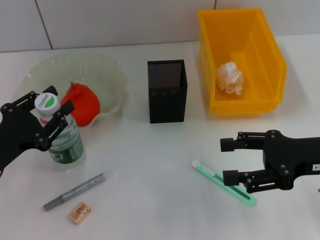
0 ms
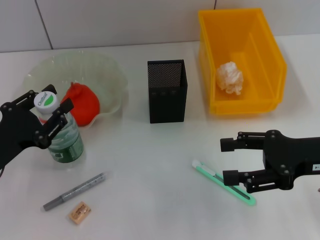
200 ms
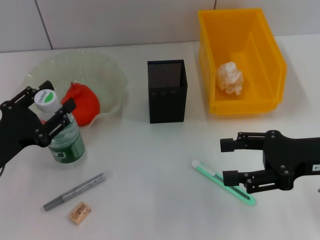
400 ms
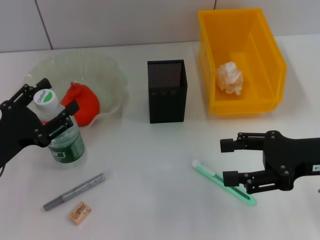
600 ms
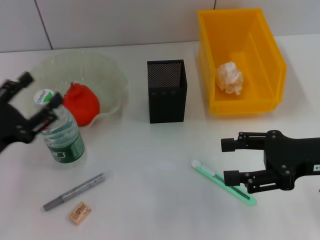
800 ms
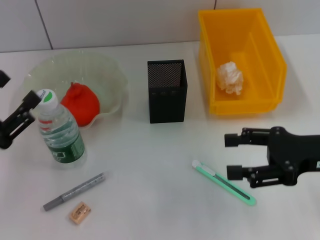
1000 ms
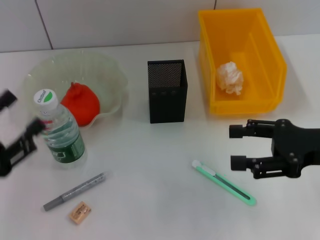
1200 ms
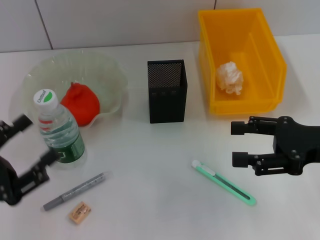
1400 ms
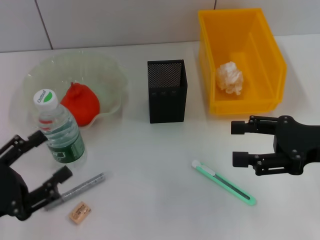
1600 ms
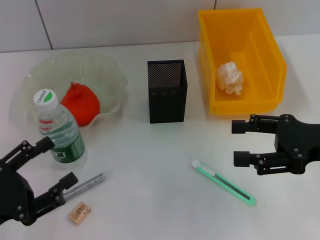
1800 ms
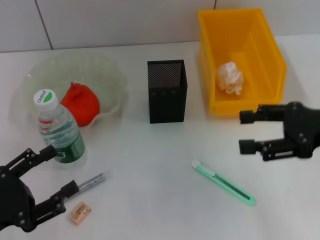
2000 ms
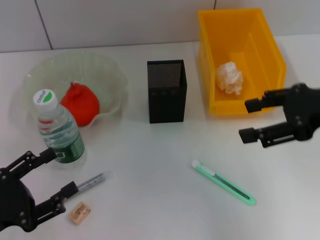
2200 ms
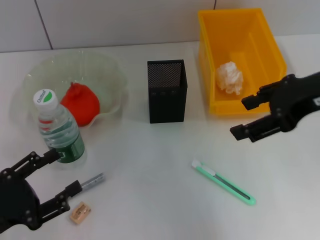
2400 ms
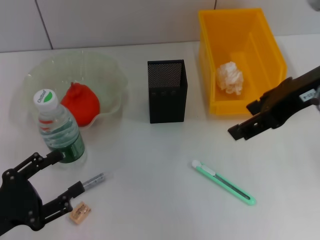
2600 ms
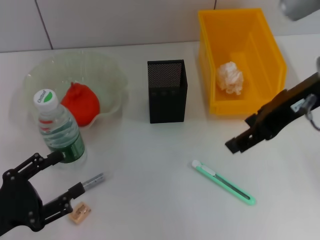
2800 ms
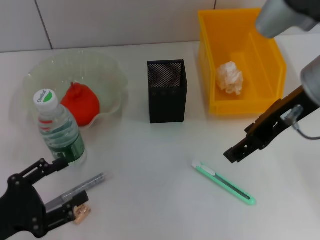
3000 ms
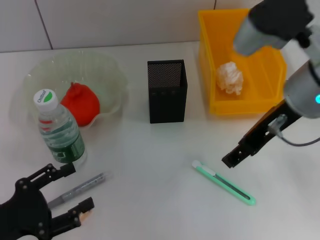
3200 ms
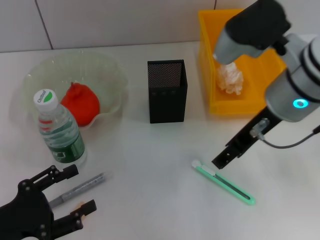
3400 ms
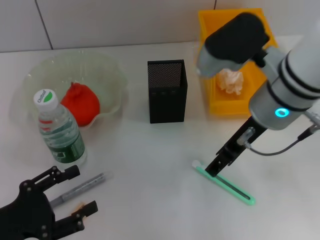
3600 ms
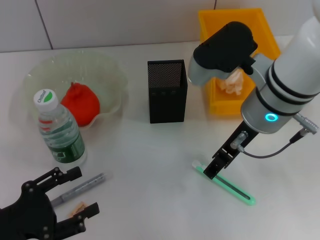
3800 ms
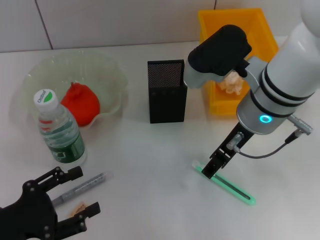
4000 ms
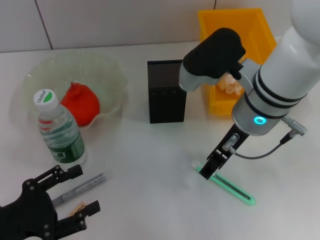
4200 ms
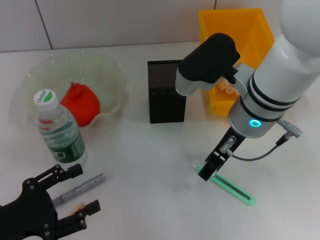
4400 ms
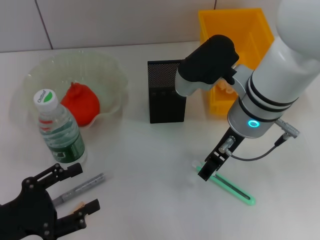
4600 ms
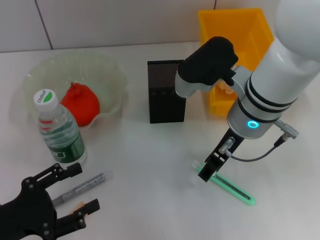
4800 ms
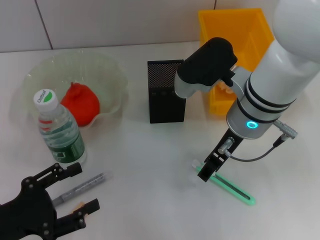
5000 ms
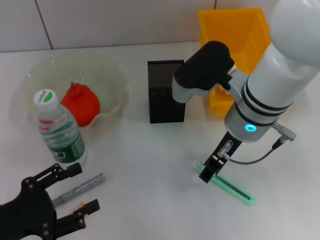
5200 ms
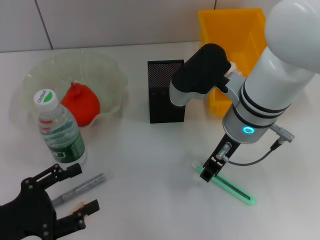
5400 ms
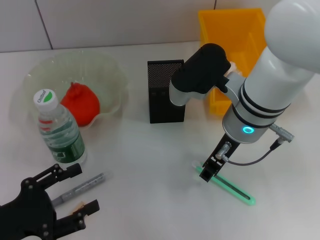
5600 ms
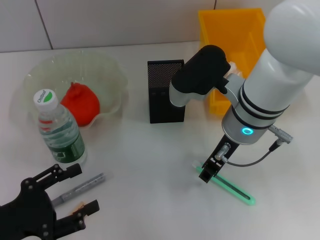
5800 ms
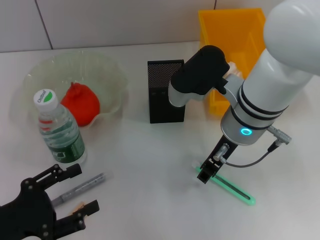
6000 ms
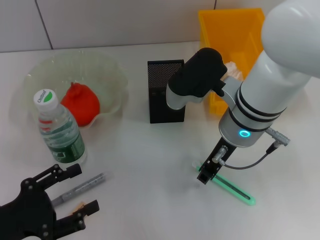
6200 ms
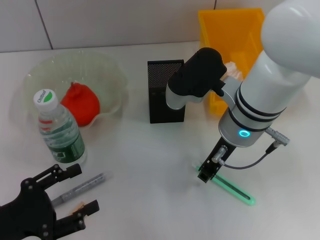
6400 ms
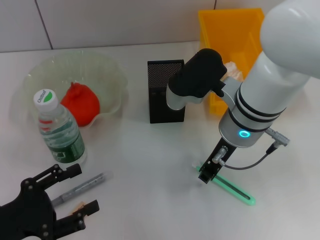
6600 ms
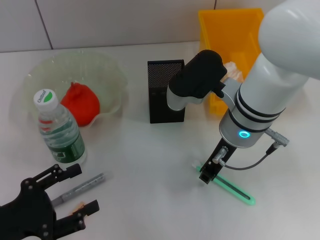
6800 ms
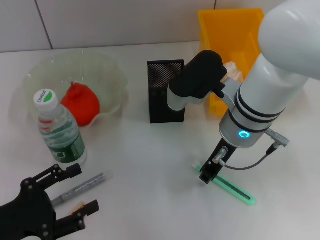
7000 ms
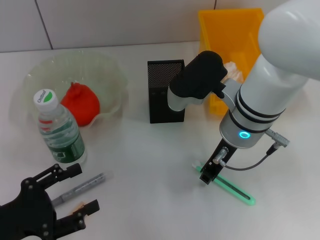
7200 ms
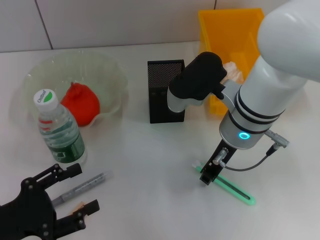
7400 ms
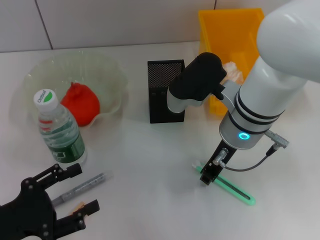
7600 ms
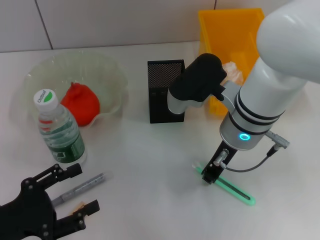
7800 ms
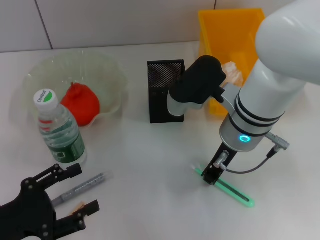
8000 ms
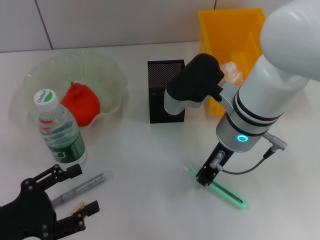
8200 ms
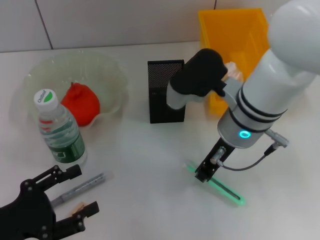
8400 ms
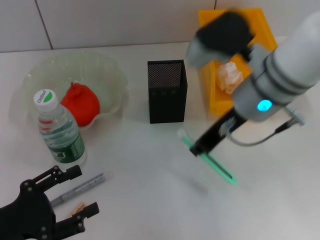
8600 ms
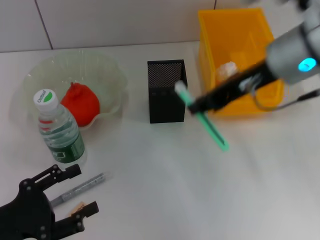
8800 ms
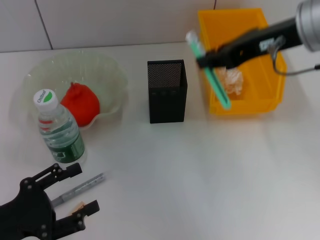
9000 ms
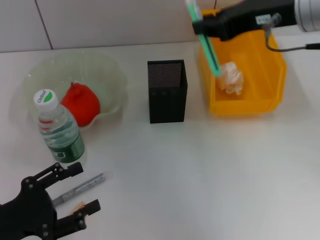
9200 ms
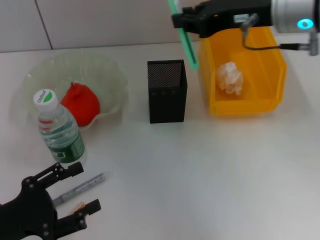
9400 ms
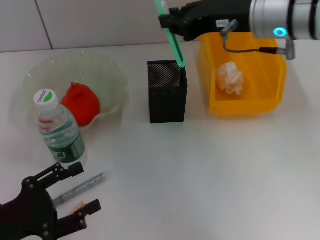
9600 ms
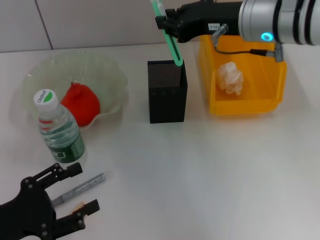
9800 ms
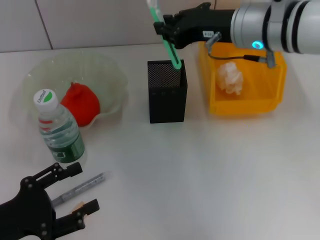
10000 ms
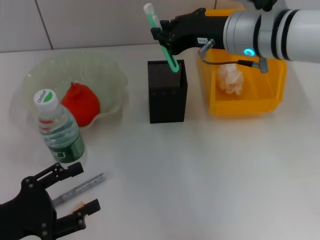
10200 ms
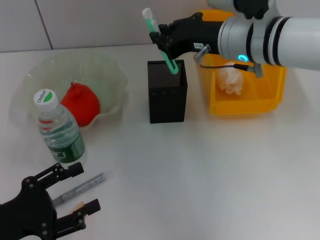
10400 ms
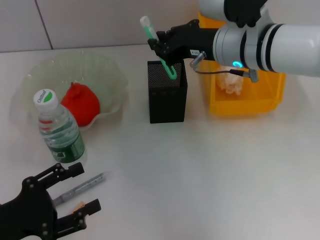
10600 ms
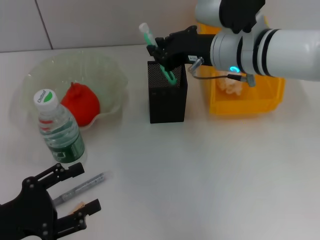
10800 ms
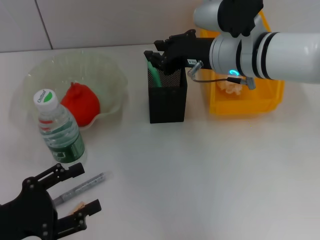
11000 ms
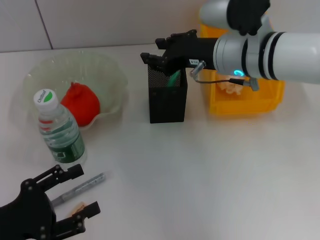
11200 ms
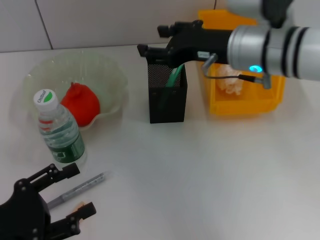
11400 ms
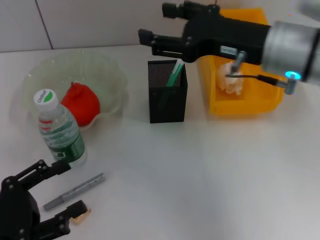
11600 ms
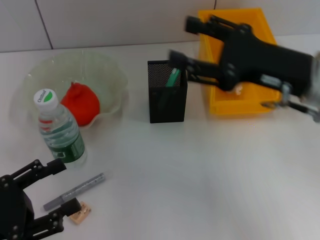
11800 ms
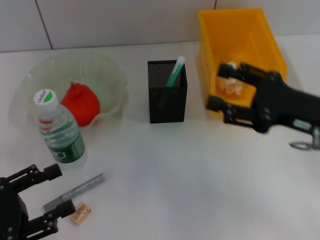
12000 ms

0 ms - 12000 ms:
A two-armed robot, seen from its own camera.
Step, 1000 ms - 7800 ms: Grab the blue utility knife with the right hand.
Step, 8200 ms - 11200 ms: Place the blue utility knife into the pen holder with the right hand.
0 ms - 1600 ms: The left gripper heads backward, covering roughly 5 cm, and opens up.
1600 ms - 3000 ms: The right gripper shifts some 15 cm upward and to the left.
3000 ms - 4400 ms: The right gripper moves downward and to the left, approximately 10 cm.
4400 ms - 6000 ms: The right gripper closes.
6000 ms - 7600 ms: Both grippers stay put.
7600 ms - 9000 ms: The right gripper is displaced upward and to the right by roughly 15 cm.
9000 ms - 10400 ms: The right gripper heads downward and to the left, covering roughly 10 cm.
10400 ms - 12000 ms: The right gripper shifts some 20 cm to the right, backward and downward, and opens its fingers.

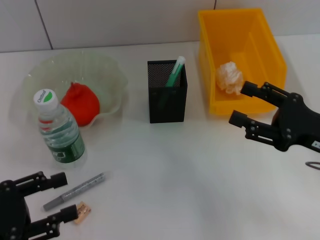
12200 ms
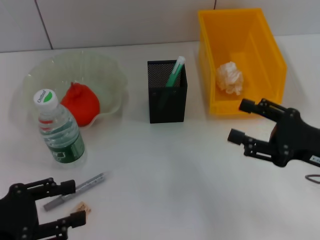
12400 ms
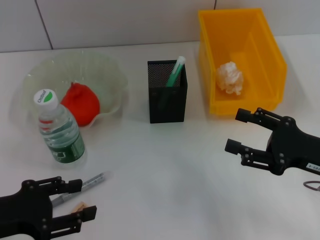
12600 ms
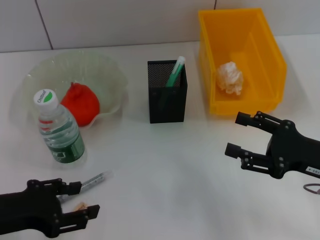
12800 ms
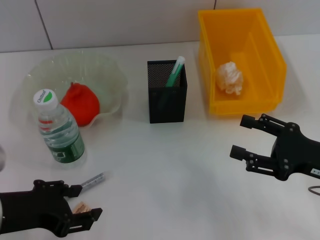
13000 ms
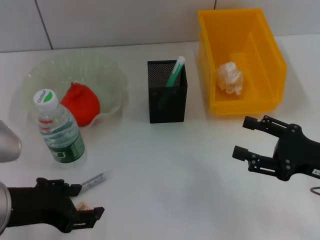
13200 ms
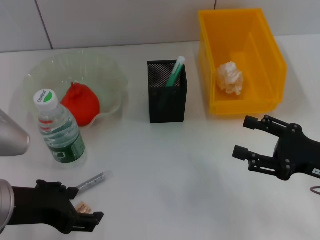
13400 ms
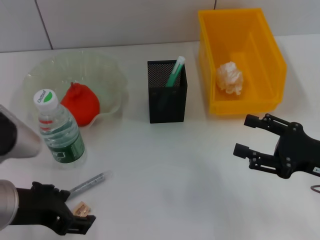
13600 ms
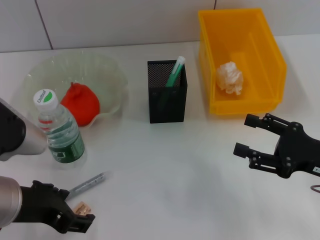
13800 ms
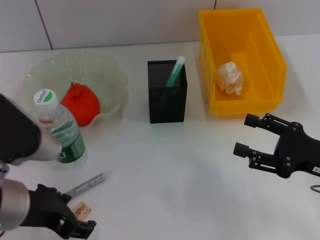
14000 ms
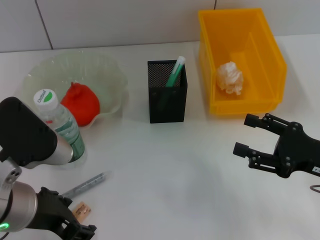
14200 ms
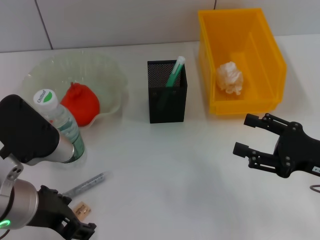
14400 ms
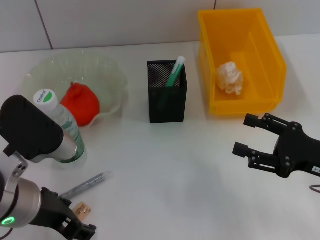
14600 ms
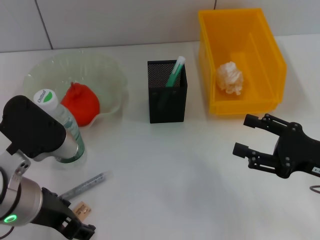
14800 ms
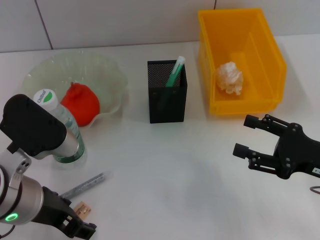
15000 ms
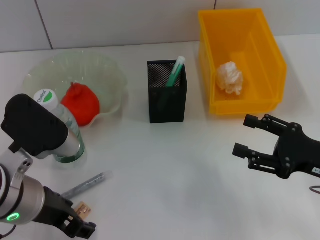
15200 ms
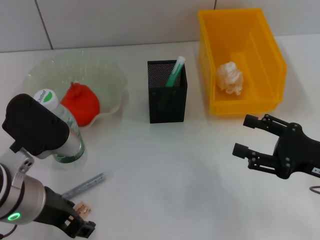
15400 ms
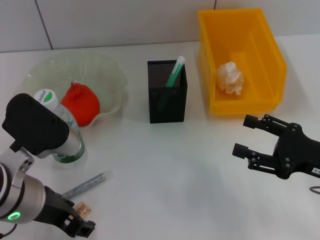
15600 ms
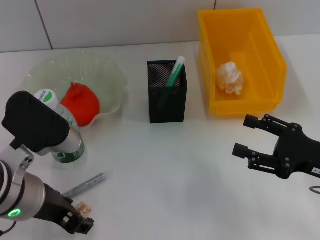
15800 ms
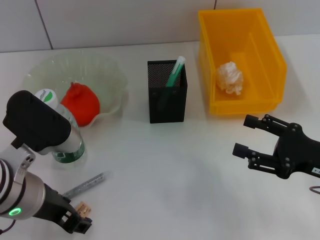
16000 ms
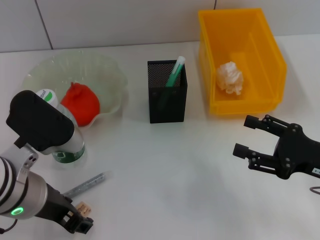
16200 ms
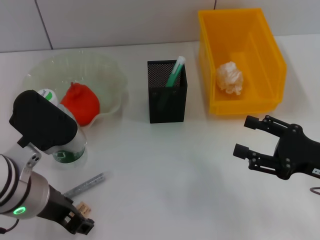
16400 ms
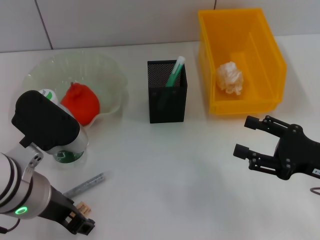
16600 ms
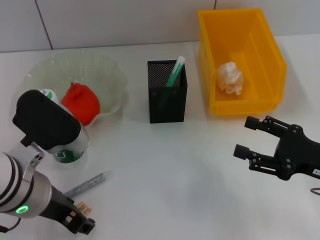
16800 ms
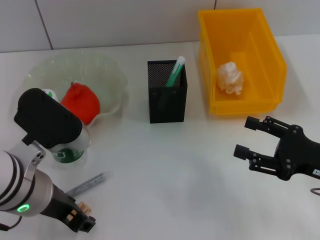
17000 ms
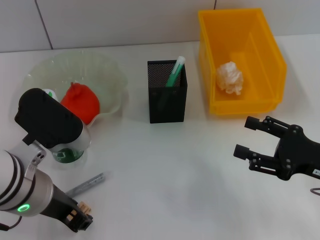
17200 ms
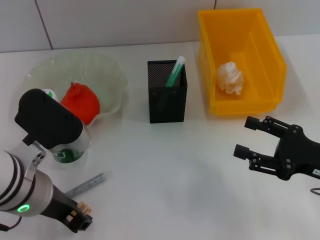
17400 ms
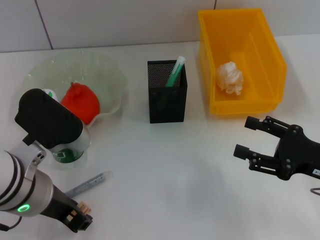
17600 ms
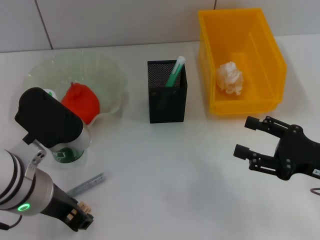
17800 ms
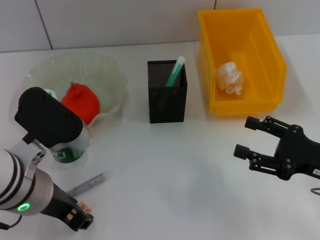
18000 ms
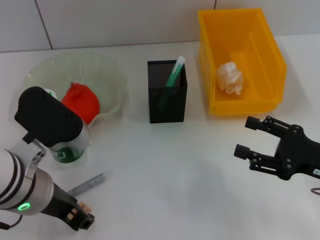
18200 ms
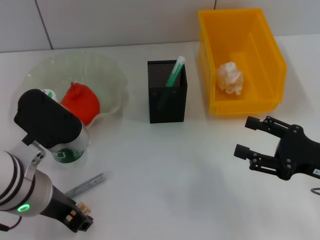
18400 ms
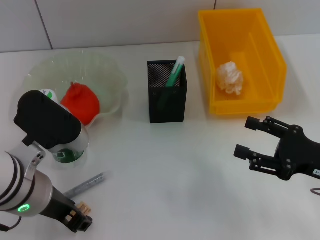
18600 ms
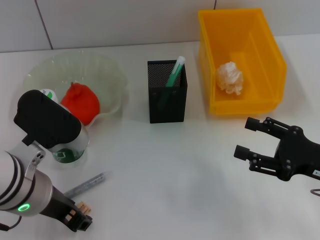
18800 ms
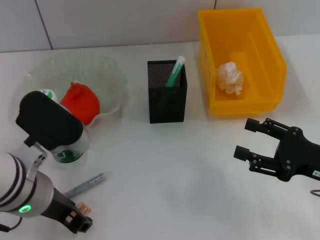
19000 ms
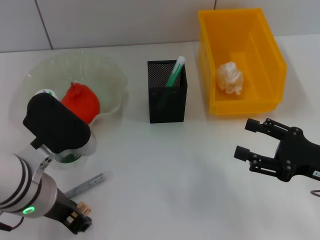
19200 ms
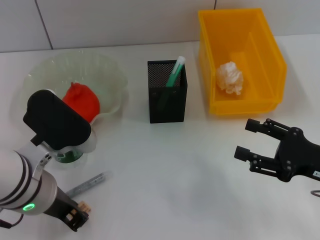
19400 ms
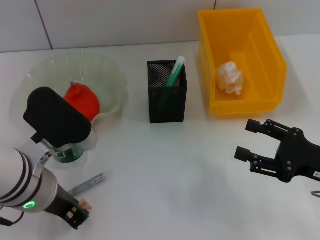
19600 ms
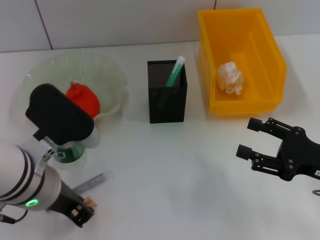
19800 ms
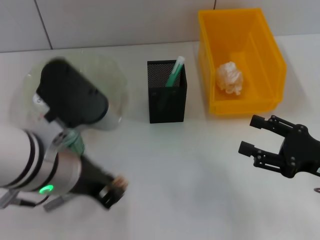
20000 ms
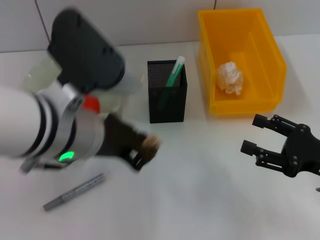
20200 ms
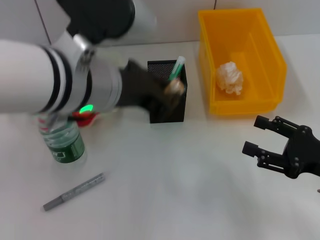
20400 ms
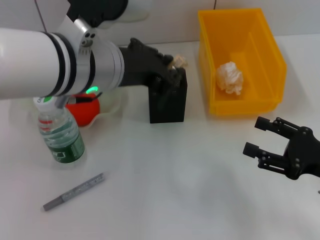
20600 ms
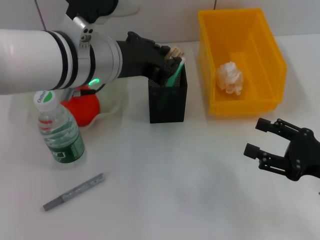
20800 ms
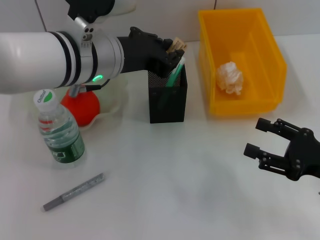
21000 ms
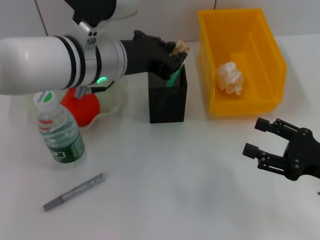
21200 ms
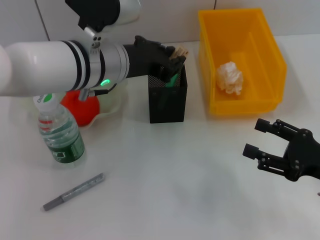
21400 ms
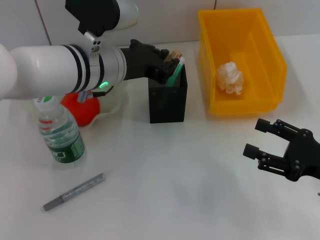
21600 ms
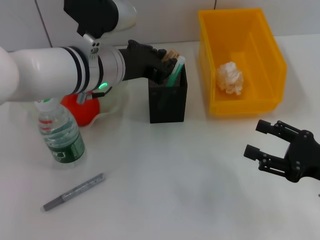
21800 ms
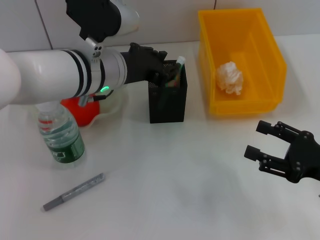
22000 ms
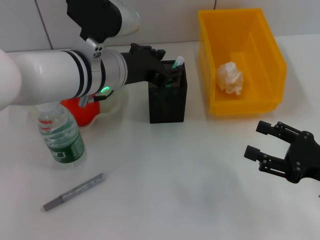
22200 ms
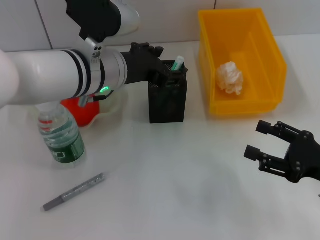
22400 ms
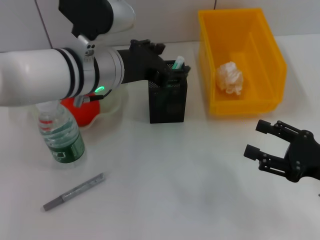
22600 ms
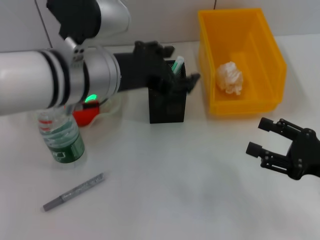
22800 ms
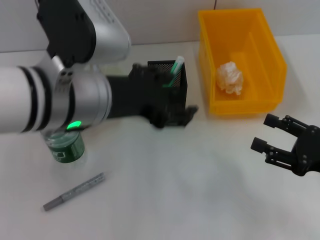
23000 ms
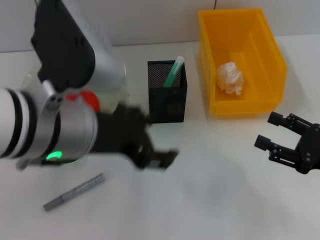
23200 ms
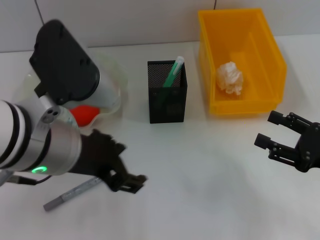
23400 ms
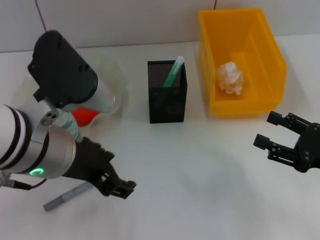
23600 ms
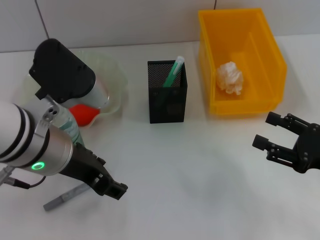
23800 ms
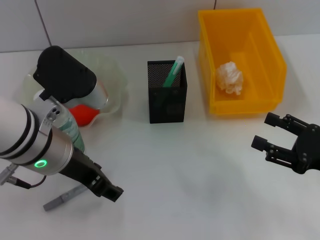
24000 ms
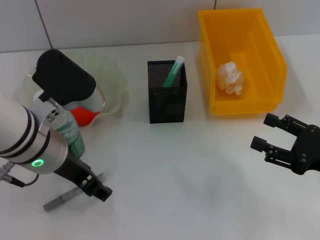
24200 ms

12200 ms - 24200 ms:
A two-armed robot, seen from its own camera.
Step, 12200 ms - 19400 ms: Grab the eraser with the left hand.
Step, 19600 ms - 22400 ms: Place the eraser into the pen holder with the left hand.
12200 ms - 13800 ms: The left gripper is displaced to the right and upward by roughly 10 cm.
13800 ms - 15200 ms: There are only small adjustments of the grippers.
15200 ms - 16600 ms: Neither gripper changes place.
16600 ms - 19800 ms: Both grippers stay put.
19800 ms - 21200 ms: The left gripper is displaced forward, to the right and upward by roughly 15 cm.
21200 ms - 22600 ms: The left gripper opens its fingers.
22600 ms - 24200 ms: The left gripper heads backward and to the left, covering roughly 10 cm.
